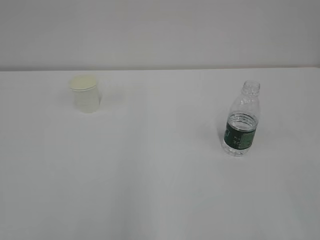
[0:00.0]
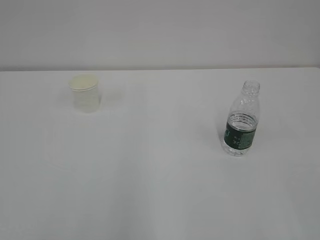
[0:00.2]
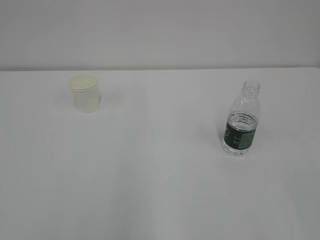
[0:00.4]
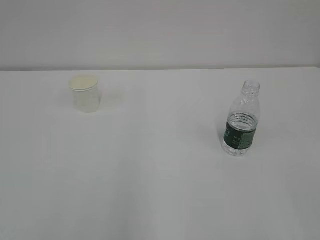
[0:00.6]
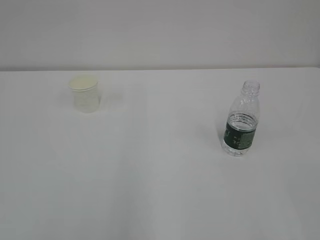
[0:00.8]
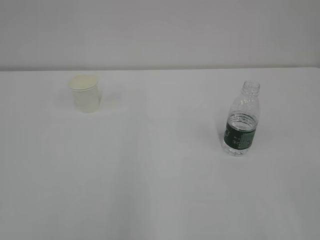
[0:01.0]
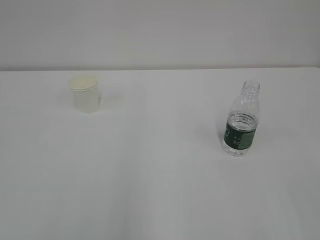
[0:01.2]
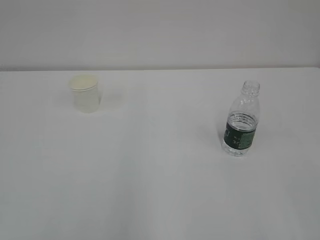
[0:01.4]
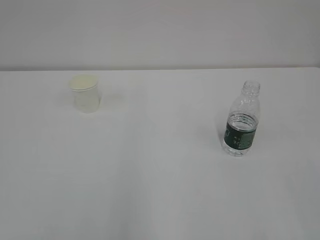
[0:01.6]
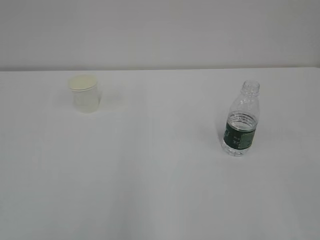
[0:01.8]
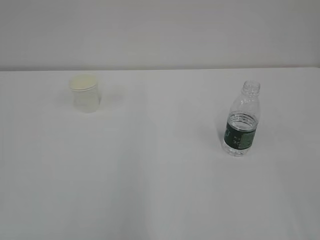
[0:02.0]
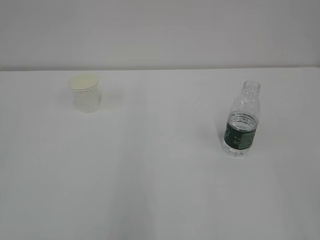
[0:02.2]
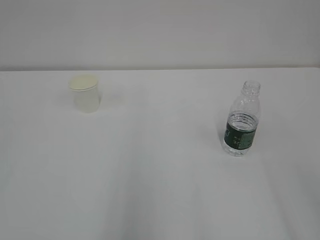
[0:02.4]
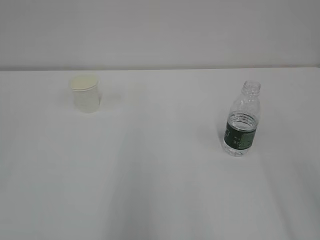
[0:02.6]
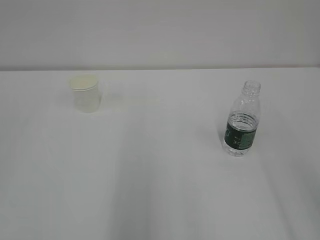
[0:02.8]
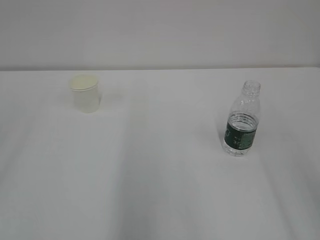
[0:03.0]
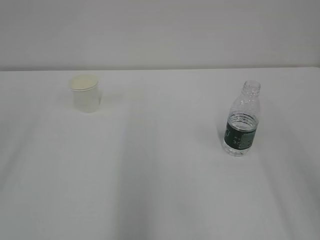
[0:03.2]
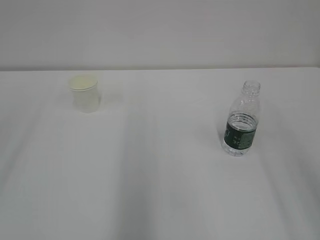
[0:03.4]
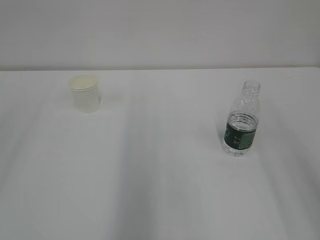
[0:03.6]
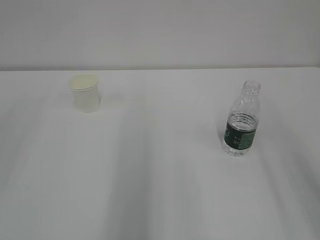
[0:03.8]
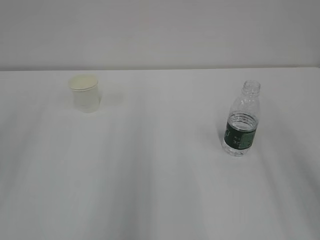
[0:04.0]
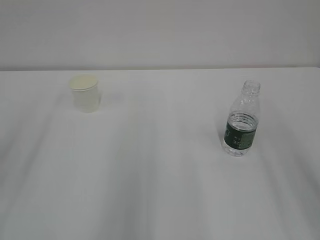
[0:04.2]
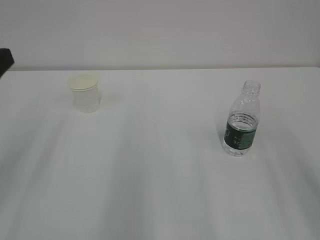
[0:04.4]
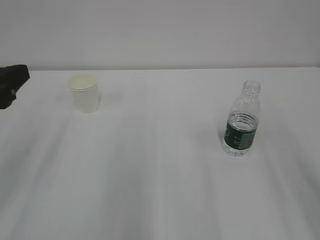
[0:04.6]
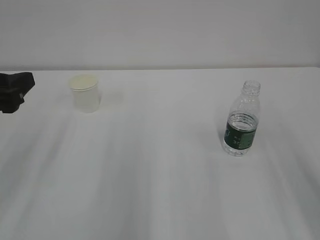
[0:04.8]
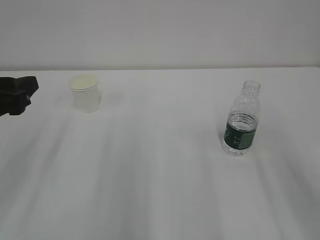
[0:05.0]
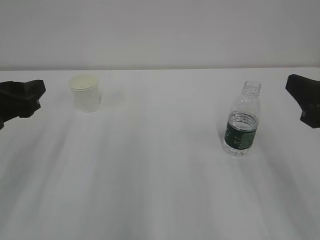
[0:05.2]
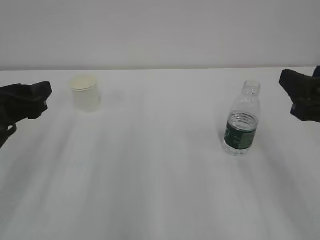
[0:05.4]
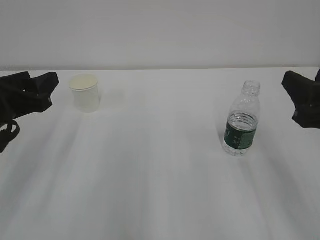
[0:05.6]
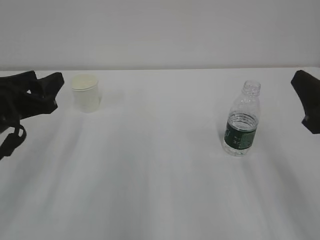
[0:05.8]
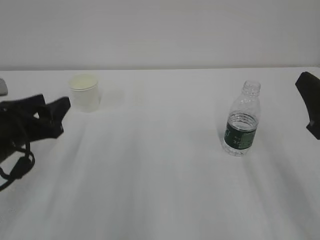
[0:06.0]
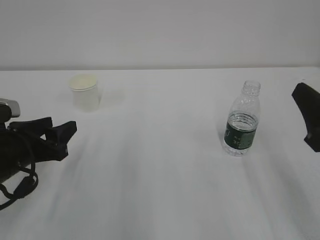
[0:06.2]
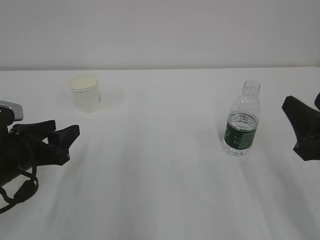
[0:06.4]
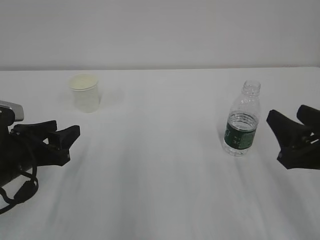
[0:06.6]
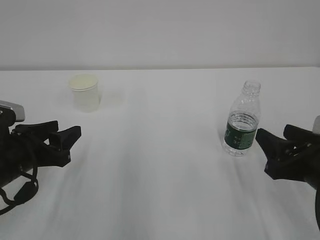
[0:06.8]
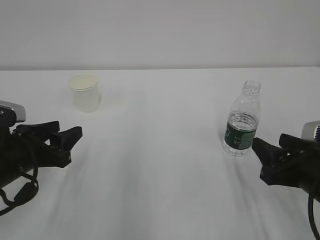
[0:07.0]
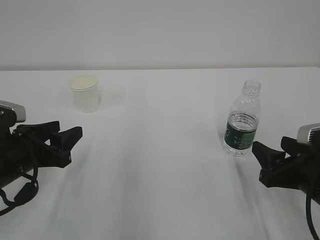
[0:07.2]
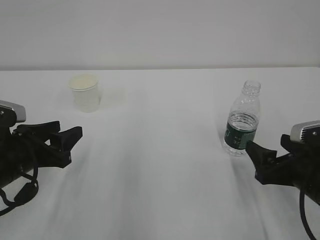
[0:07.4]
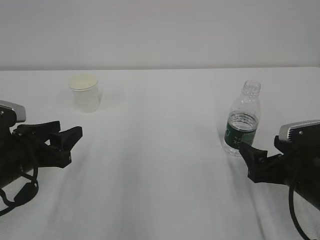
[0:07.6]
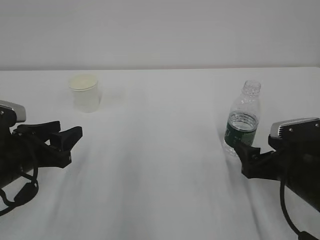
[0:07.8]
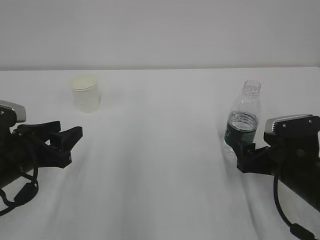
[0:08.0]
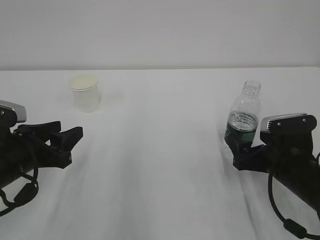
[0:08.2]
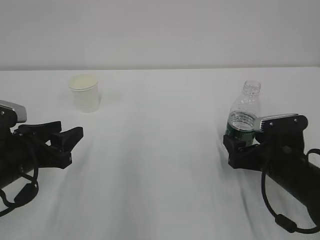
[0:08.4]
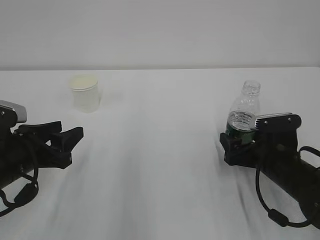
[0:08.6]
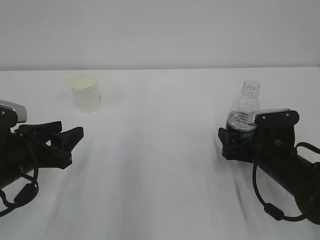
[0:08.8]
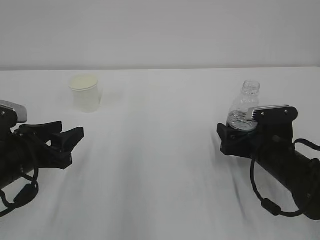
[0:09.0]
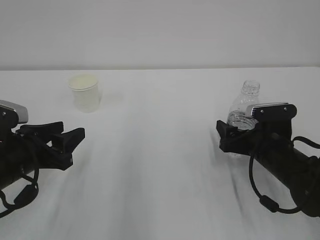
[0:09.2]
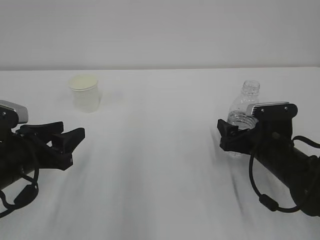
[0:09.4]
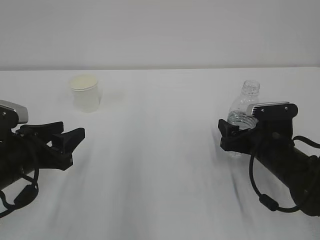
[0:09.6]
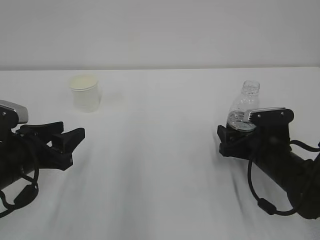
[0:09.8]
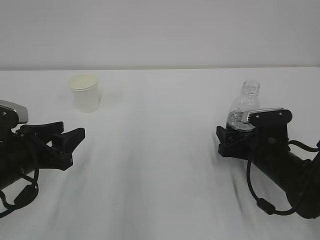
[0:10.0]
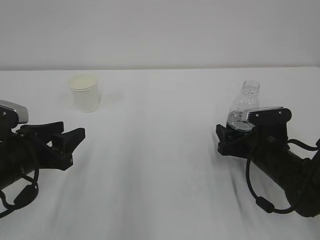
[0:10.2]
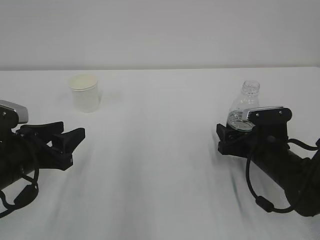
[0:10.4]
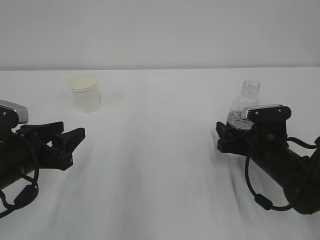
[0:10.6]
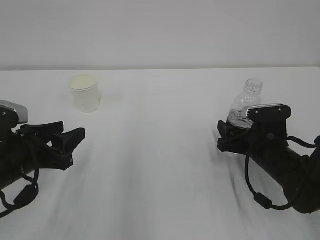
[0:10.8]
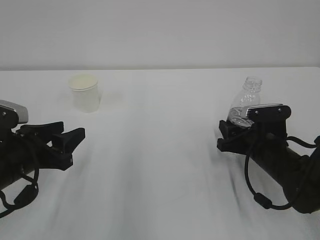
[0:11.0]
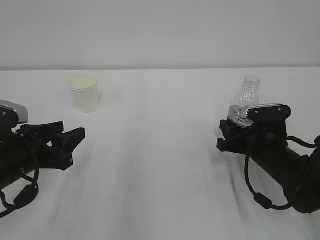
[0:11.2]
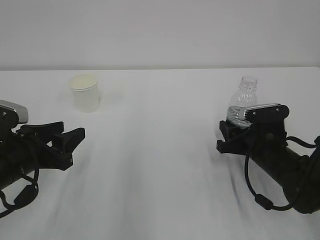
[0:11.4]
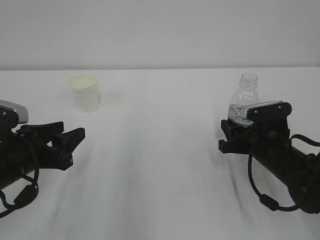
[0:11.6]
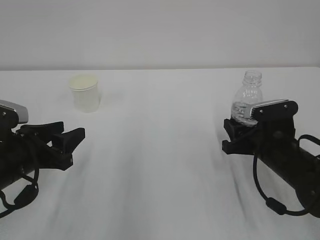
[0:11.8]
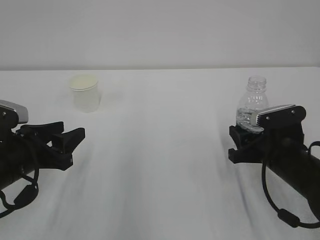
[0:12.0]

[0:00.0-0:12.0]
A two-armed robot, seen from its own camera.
0:04.4 to 0:06.0: The left gripper is displaced downward and forward by about 15 cm. Meanwhile the right gripper moves downward, roughly 10 cm.
0:06.0 to 0:07.6: The right gripper moves downward and forward, roughly 15 cm, and opens up.
0:07.6 to 0:09.0: The right gripper shifts roughly 5 cm forward.
0:09.0 to 0:10.4: The grippers move only a little.
0:10.4 to 0:12.0: The right gripper closes its fingers.

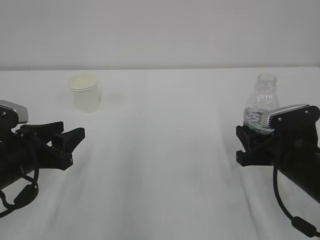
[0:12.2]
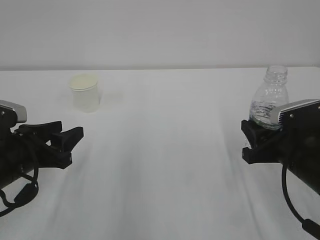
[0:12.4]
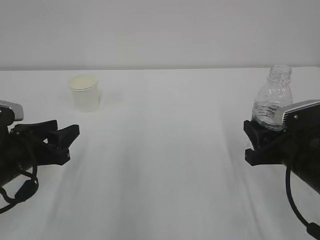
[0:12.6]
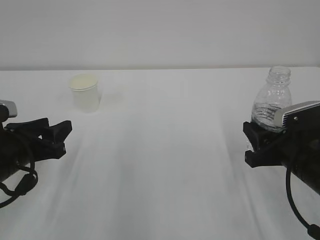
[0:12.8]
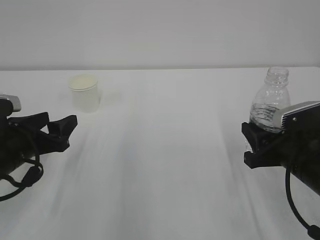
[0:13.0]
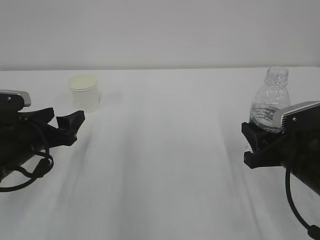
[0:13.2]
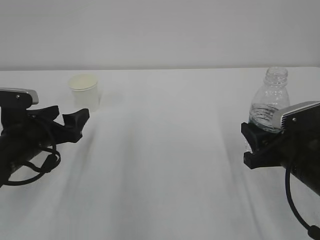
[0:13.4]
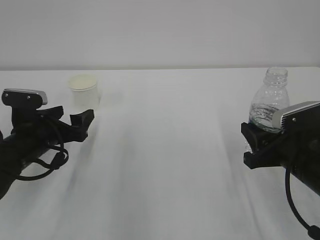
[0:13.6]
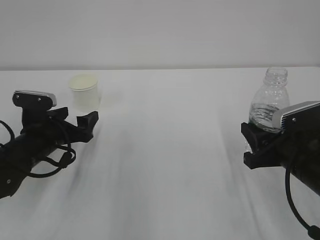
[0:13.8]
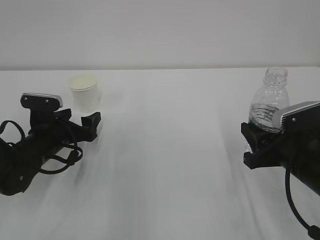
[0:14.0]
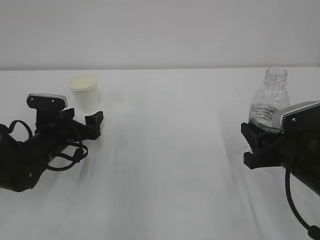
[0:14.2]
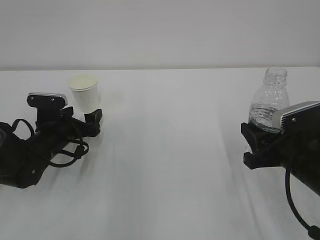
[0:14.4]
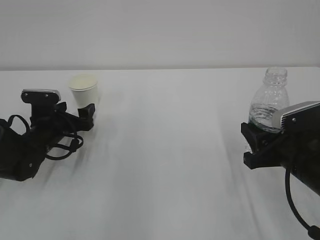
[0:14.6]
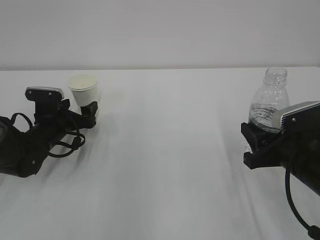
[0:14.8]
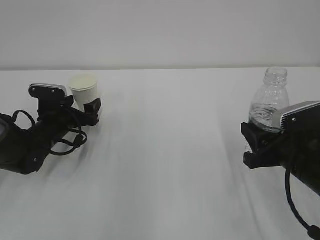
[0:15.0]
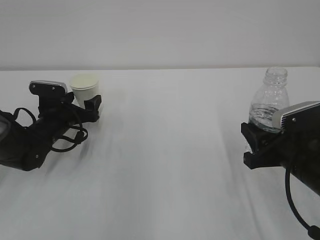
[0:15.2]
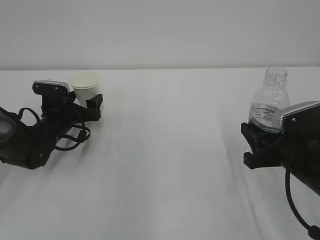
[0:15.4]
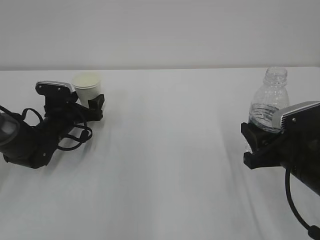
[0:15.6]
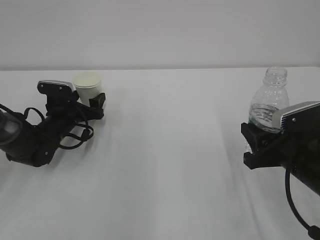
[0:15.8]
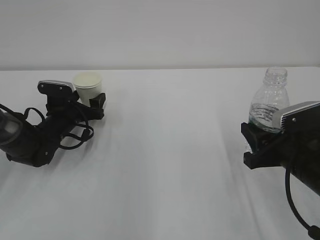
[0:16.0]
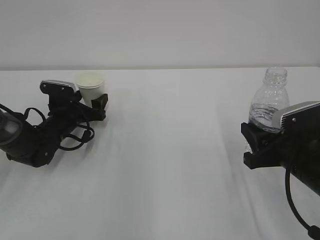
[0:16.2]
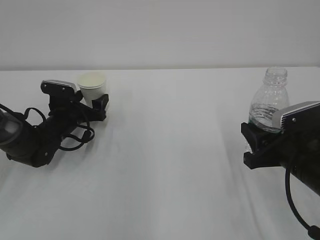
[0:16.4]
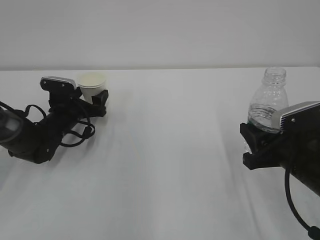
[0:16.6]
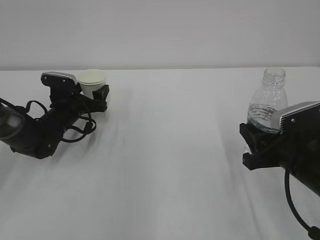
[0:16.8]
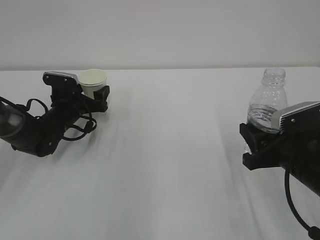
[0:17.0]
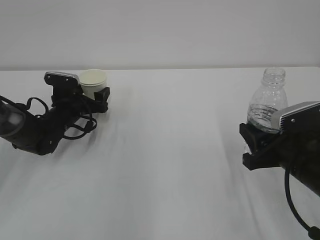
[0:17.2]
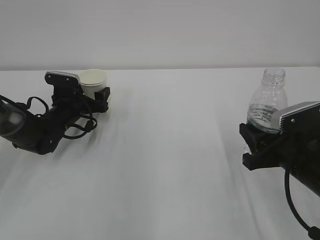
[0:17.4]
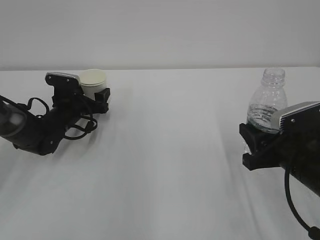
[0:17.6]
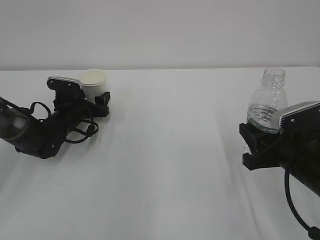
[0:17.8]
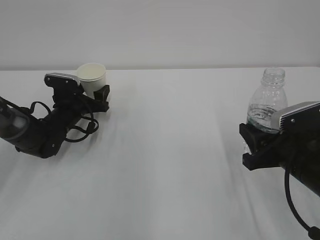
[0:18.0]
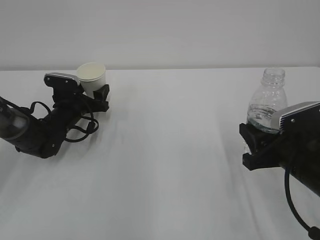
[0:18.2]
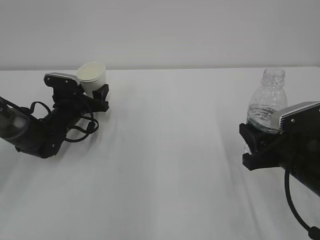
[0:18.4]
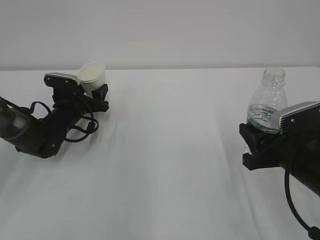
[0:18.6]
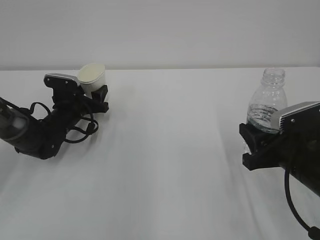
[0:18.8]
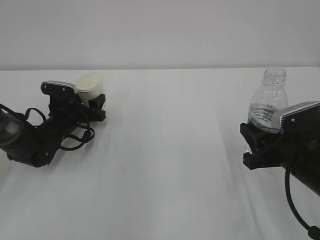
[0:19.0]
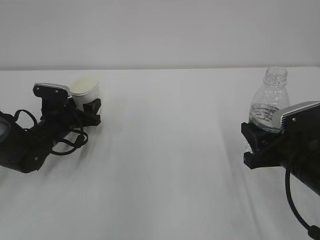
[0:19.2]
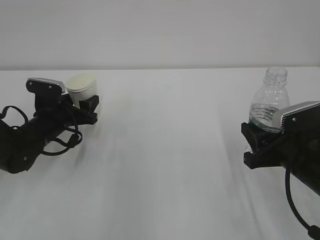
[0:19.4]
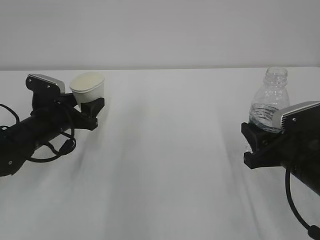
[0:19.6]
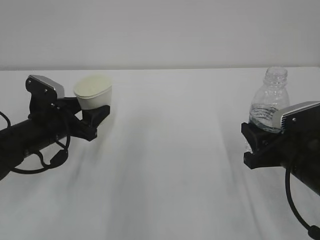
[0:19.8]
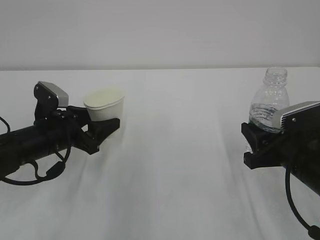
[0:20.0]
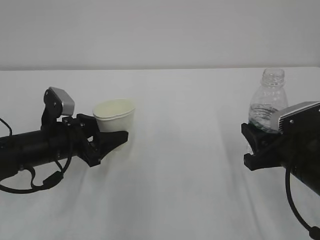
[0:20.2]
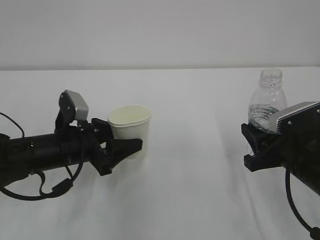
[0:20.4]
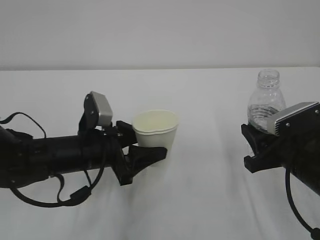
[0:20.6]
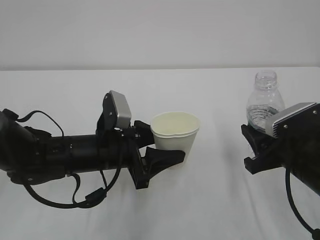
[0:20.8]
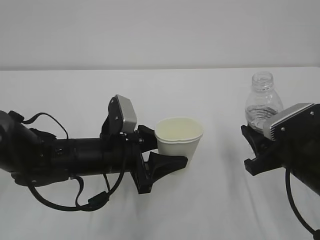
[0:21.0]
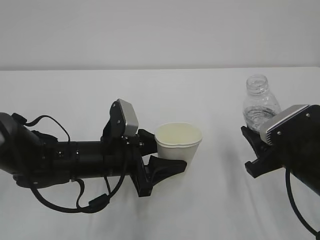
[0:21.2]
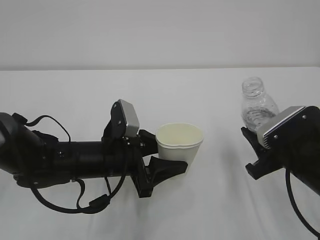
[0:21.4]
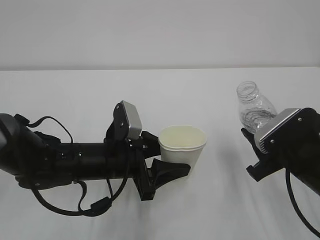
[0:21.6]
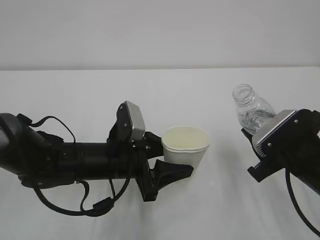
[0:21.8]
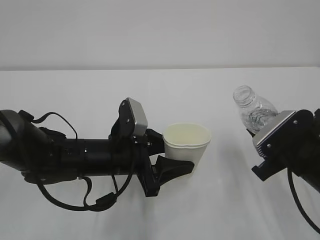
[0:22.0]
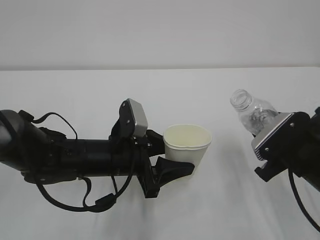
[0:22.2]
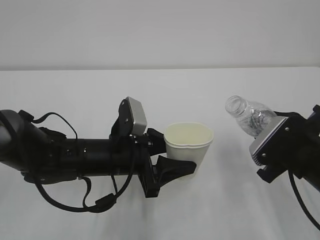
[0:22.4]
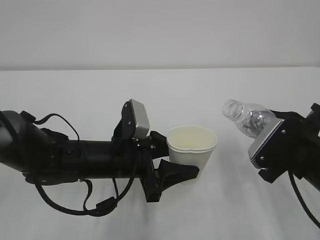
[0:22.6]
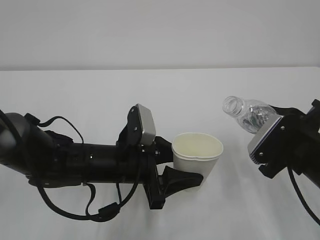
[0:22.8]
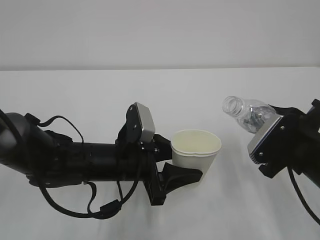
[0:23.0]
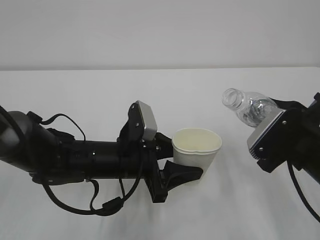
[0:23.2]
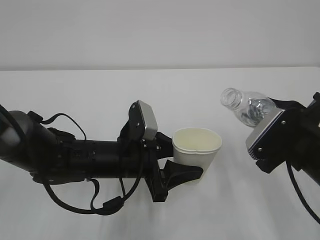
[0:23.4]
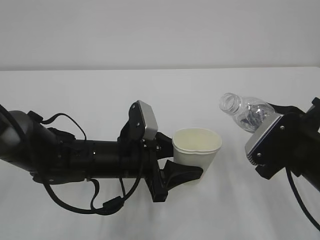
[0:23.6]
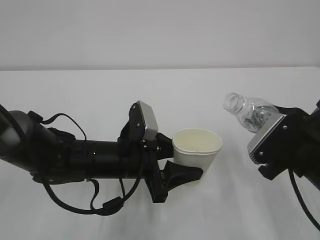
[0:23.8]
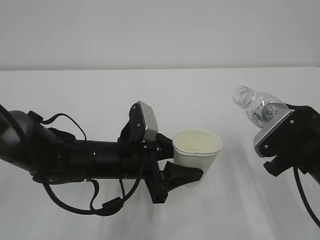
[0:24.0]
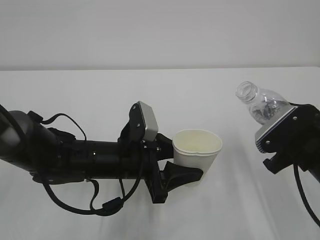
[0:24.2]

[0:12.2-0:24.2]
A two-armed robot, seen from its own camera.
0:12.2 to 0:13.8: The left gripper is displaced forward by some 10 cm, and opens its fingers.
0:13.8 to 0:15.2: The left gripper heads forward, covering roughly 10 cm.
0:15.2 to 0:18.2: The grippers move only a little.
0:18.2 to 0:19.8: The left gripper heads backward and upward, covering some 15 cm.
0:19.8 to 0:21.2: The left gripper shifts some 15 cm to the right and backward.
0:22.6 to 0:24.2: The grippers make only small movements.
